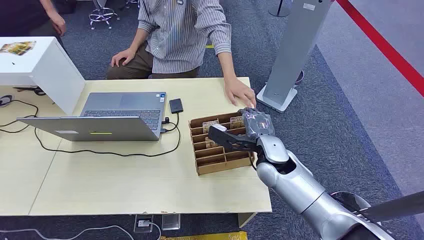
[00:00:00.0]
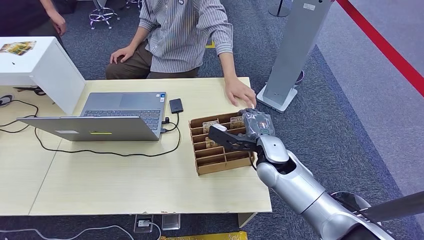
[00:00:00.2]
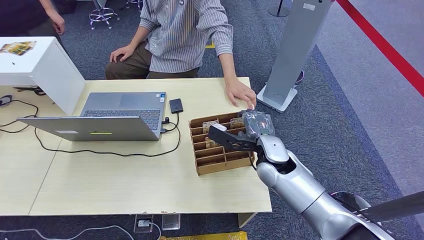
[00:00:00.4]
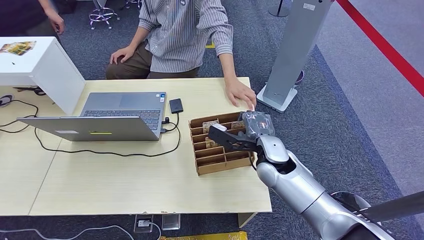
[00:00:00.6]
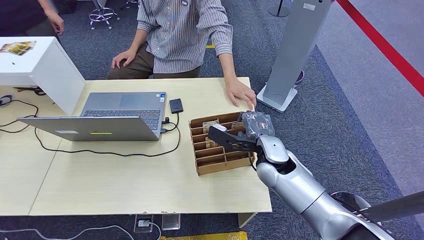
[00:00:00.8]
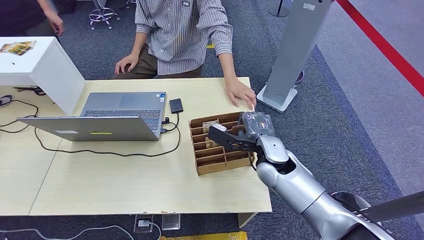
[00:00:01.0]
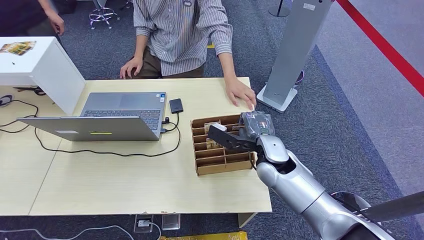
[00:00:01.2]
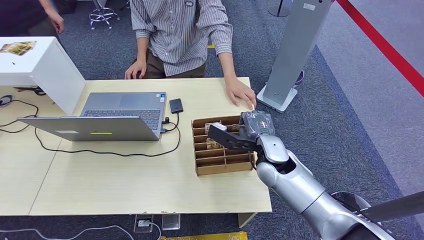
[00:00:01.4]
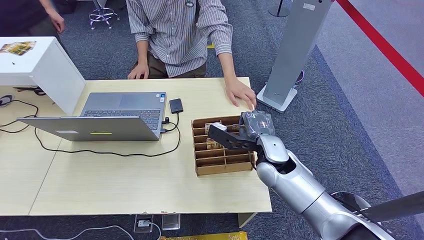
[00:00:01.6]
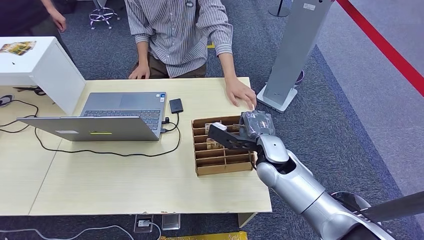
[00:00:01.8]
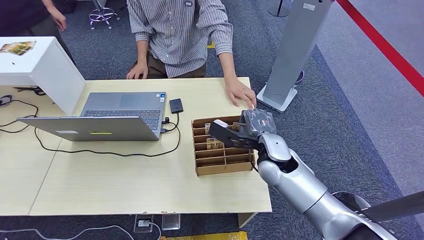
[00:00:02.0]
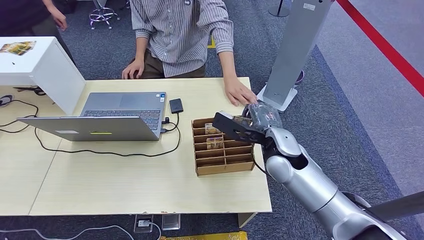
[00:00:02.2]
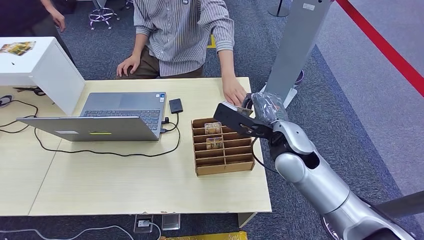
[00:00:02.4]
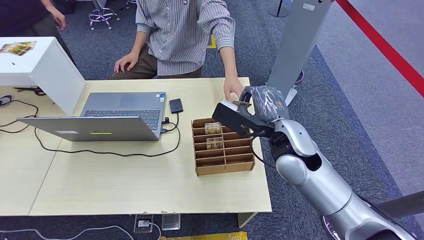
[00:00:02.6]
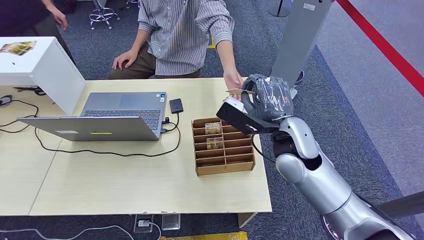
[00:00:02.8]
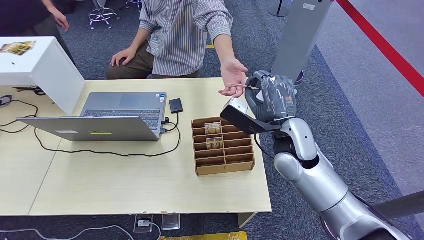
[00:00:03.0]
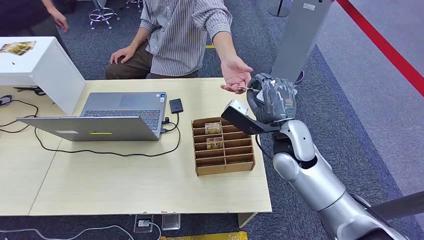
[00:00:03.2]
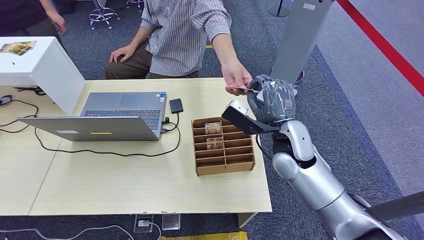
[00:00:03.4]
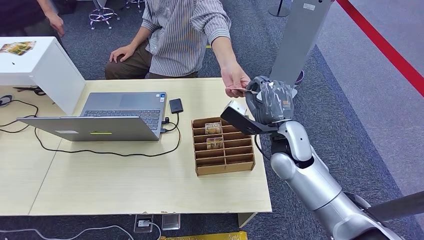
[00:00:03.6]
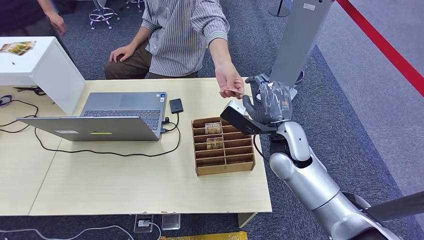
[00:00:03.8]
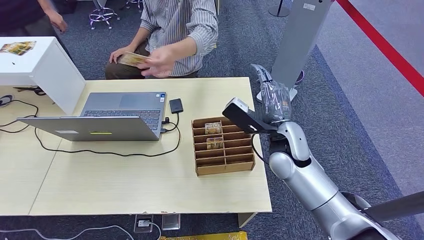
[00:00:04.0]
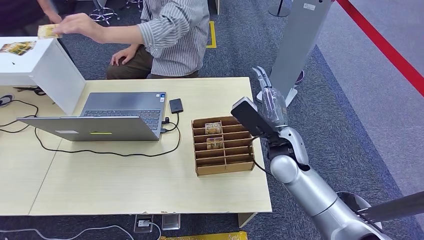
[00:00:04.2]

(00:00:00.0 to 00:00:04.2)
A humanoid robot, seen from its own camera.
Step, 00:00:00.0 - 00:00:02.4: Pick up the key card from the card box.
Step, 00:00:03.2 - 00:00:04.2: Hand the key card to the target.
00:00:01.4 - 00:00:02.8: The right hand heads upward, covering some 10 cm.
00:00:02.8 - 00:00:04.2: There are only small adjustments of the hands.

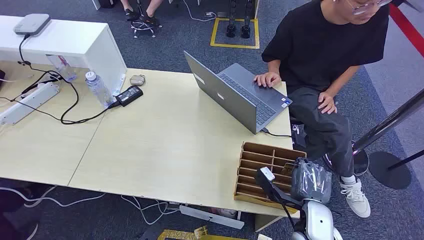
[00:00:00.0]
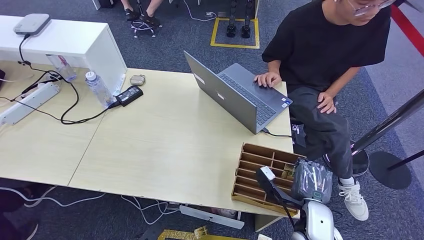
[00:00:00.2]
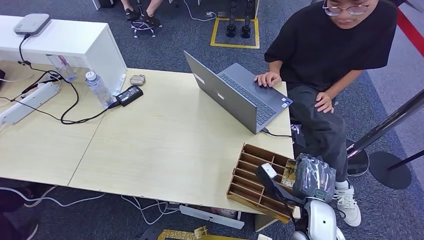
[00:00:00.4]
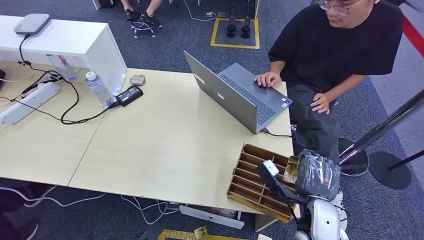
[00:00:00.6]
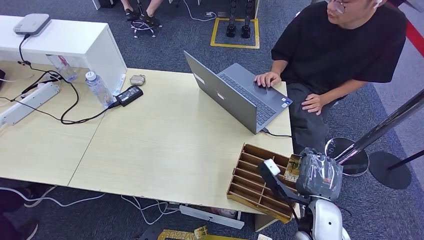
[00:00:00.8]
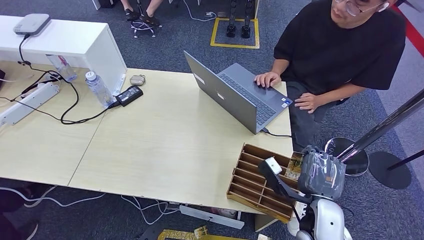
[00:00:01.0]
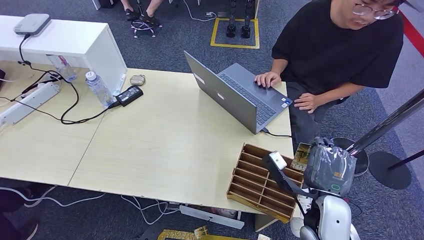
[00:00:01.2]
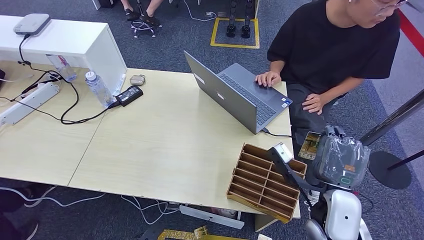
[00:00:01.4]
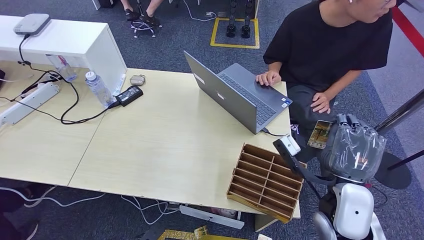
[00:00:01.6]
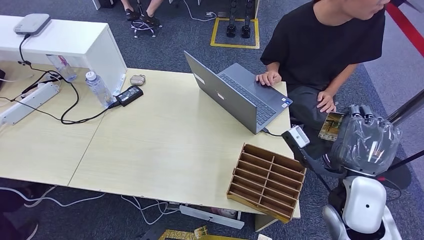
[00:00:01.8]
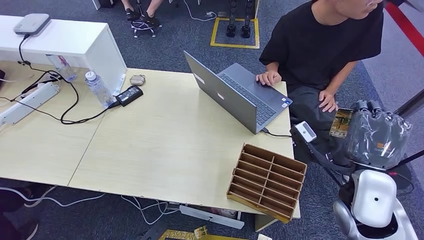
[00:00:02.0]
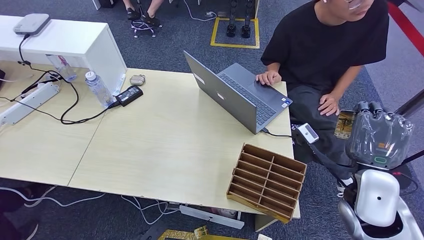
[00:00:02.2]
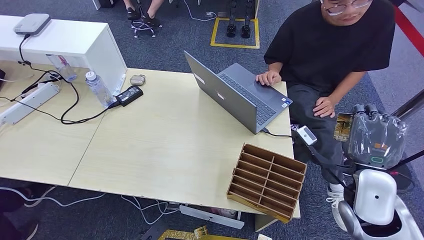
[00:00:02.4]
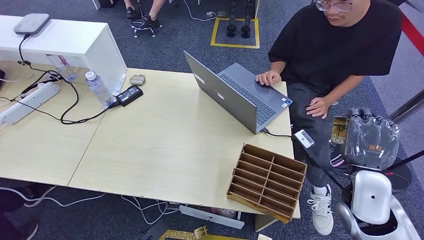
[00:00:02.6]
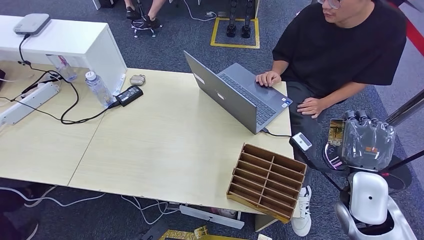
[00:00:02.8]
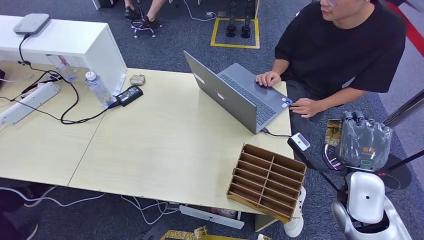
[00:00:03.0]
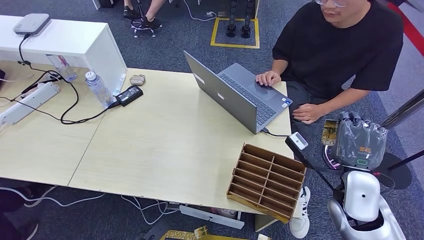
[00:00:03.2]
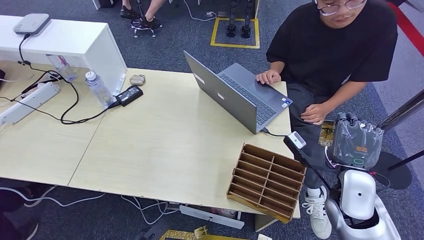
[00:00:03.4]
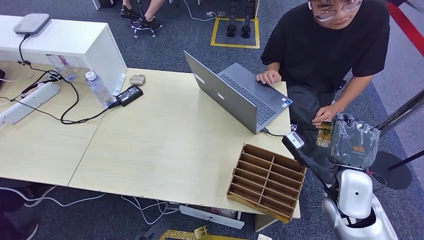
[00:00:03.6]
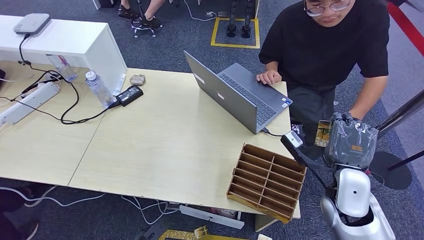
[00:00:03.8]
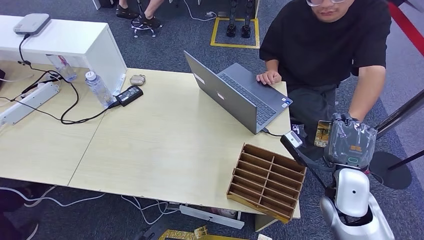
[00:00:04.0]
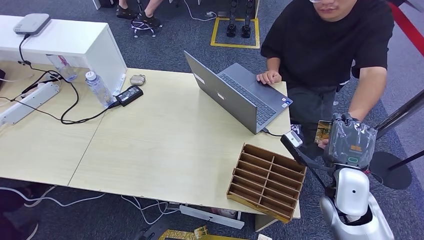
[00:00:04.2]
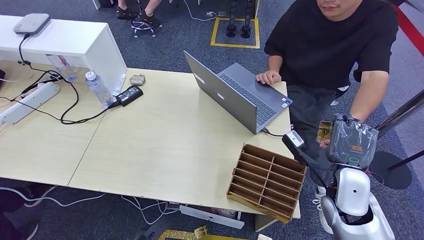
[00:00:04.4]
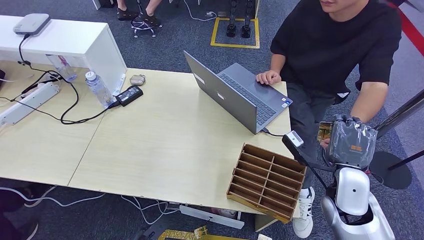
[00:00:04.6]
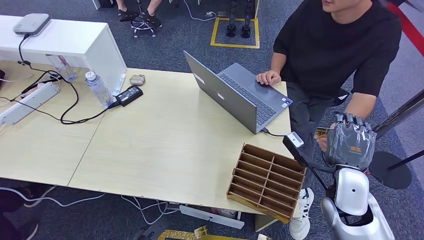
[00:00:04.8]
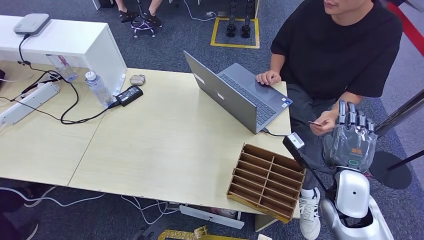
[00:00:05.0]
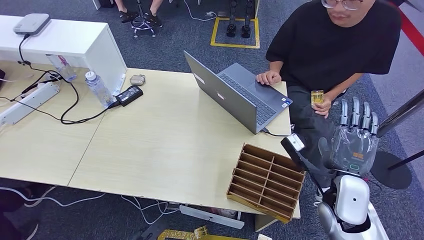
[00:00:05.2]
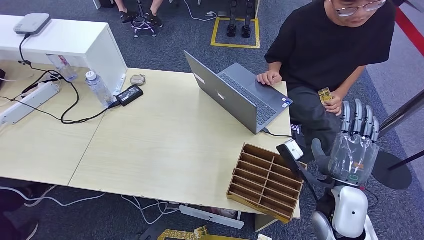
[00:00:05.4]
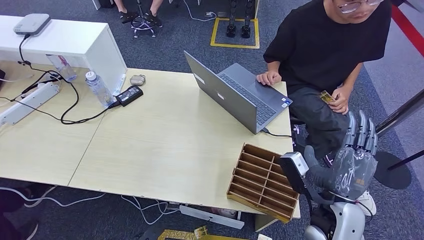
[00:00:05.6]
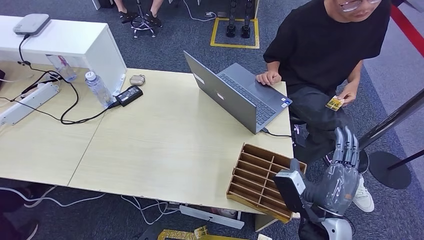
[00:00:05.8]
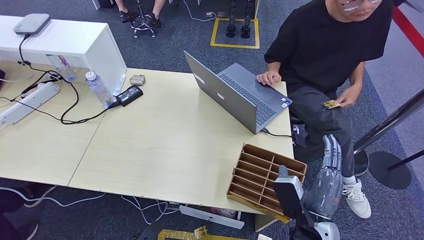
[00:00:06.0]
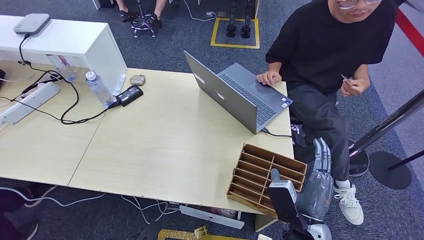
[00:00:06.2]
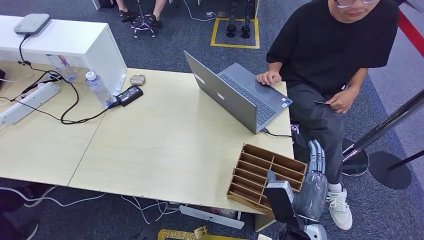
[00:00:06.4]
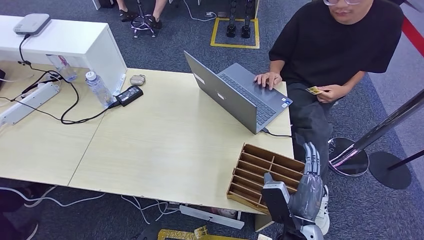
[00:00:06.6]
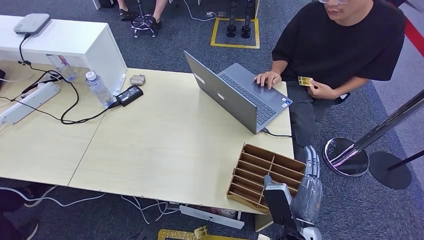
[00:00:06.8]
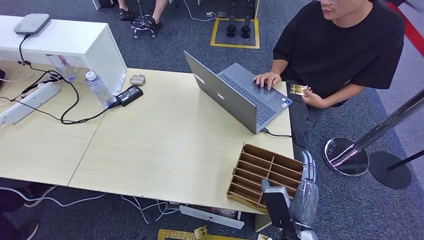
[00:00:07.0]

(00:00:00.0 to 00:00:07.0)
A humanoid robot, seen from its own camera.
Step, 00:00:00.0 - 00:00:01.2: Pick up the key card from the card box.
Step, 00:00:01.4 - 00:00:07.0: Hand the key card to the target.
00:00:01.4 - 00:00:02.8: The right hand moves to the right, some 5 cm.
00:00:02.8 - 00:00:04.2: The hands make only small movements.
00:00:04.2 - 00:00:05.6: The right hand travels backward by approximately 5 cm.
00:00:05.6 - 00:00:07.0: The right hand shifts about 10 cm downward, to the left and backward.
